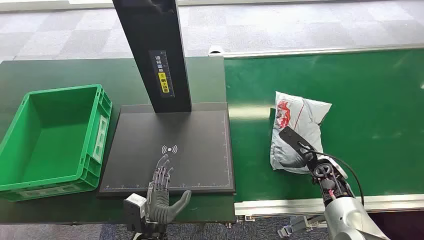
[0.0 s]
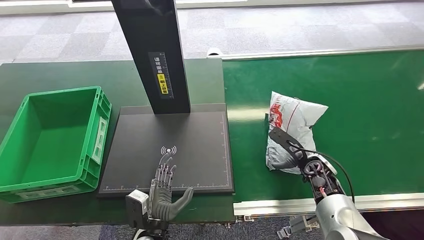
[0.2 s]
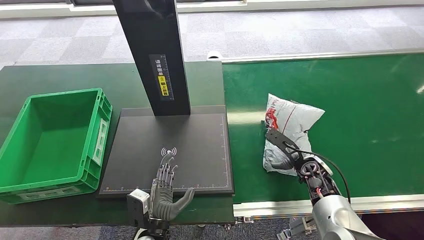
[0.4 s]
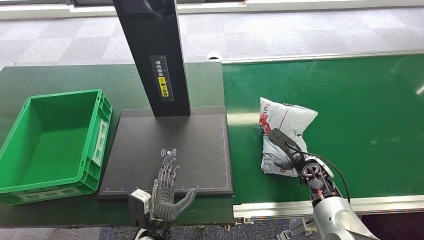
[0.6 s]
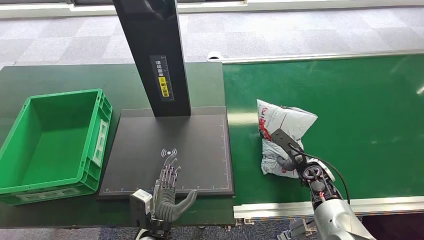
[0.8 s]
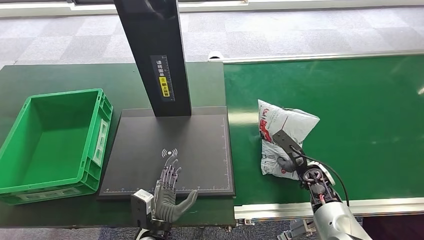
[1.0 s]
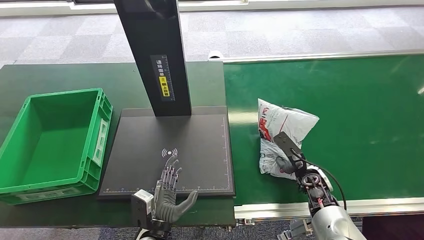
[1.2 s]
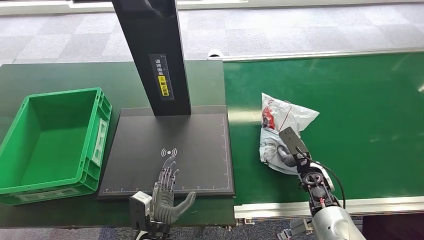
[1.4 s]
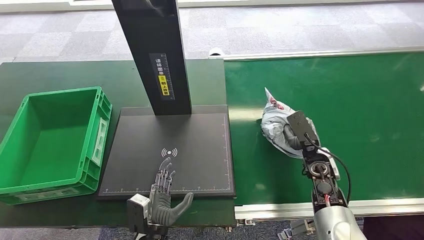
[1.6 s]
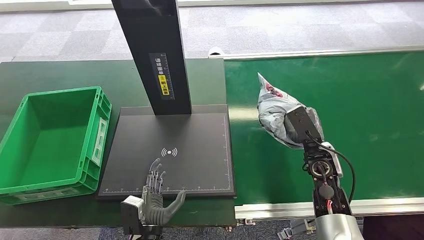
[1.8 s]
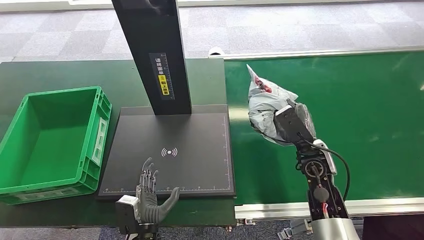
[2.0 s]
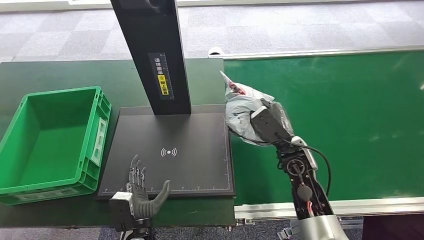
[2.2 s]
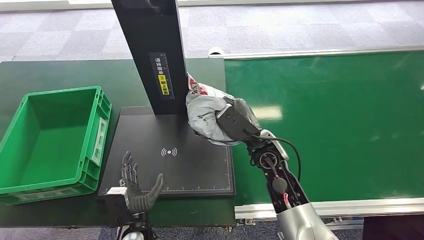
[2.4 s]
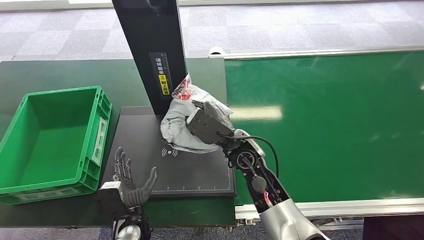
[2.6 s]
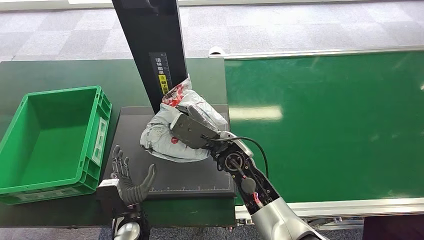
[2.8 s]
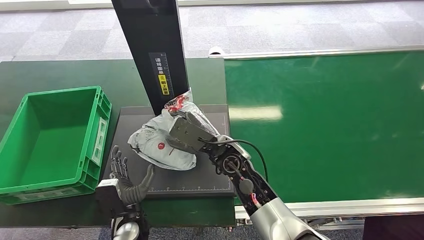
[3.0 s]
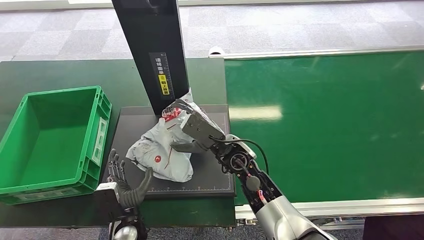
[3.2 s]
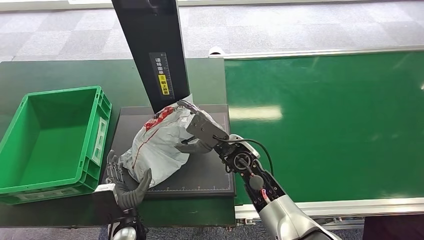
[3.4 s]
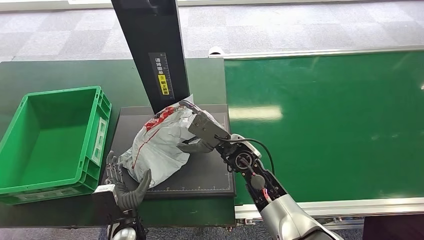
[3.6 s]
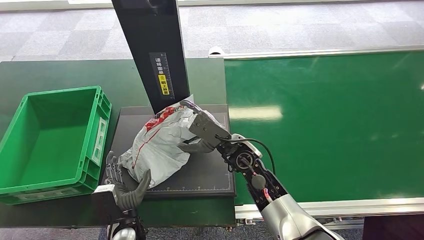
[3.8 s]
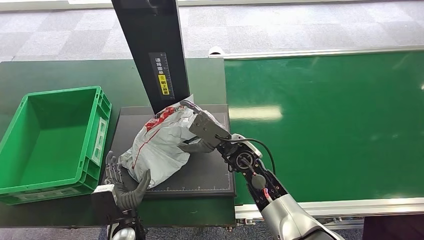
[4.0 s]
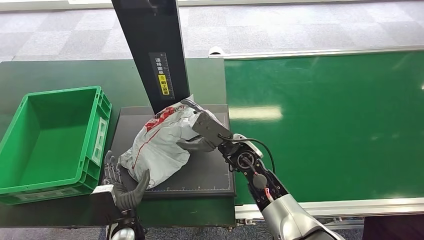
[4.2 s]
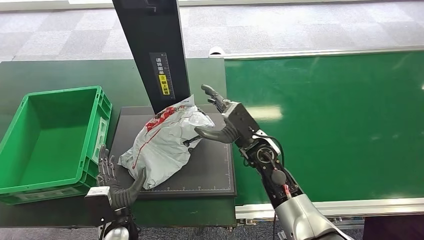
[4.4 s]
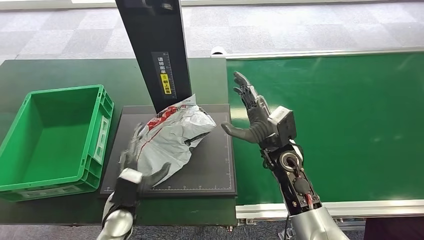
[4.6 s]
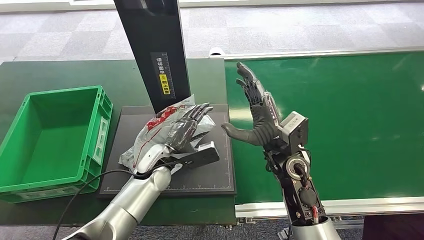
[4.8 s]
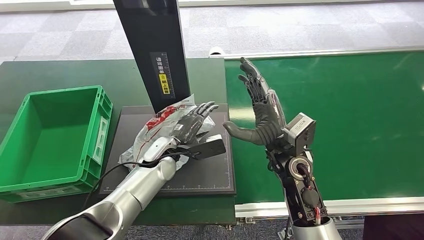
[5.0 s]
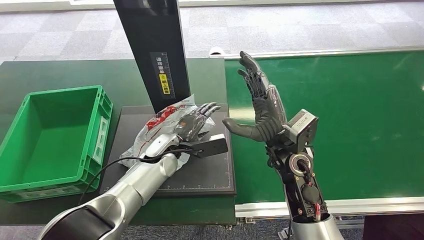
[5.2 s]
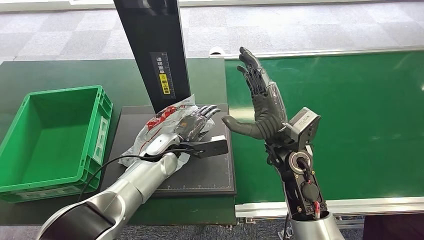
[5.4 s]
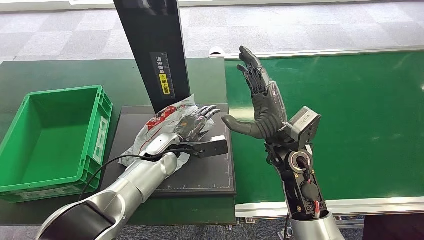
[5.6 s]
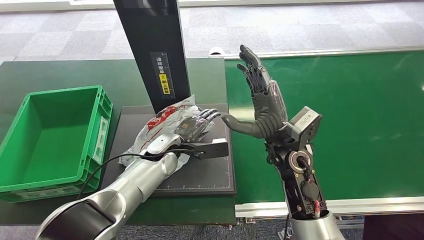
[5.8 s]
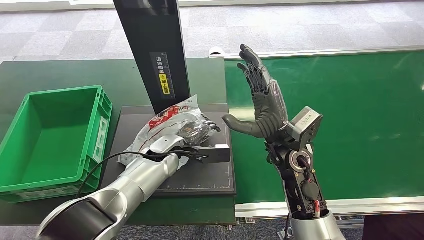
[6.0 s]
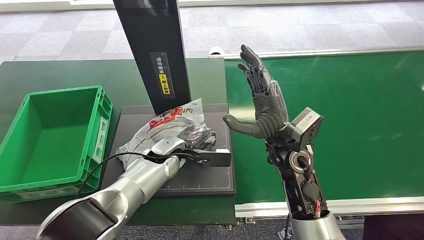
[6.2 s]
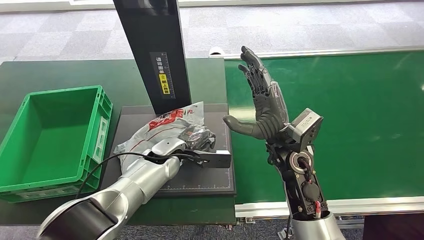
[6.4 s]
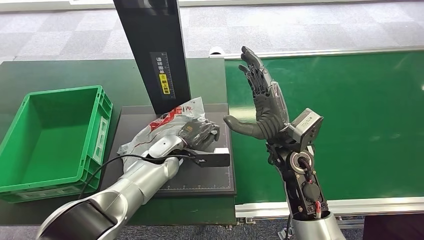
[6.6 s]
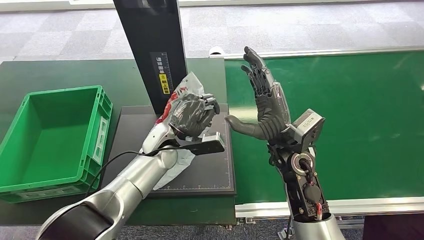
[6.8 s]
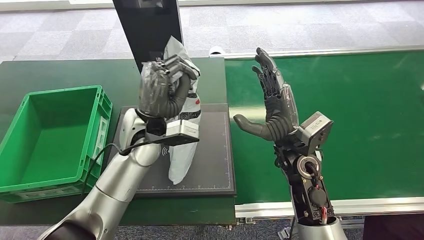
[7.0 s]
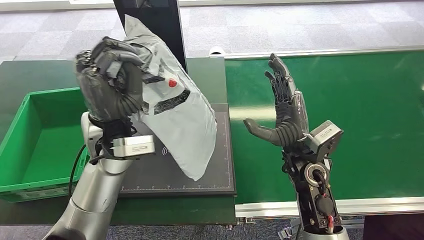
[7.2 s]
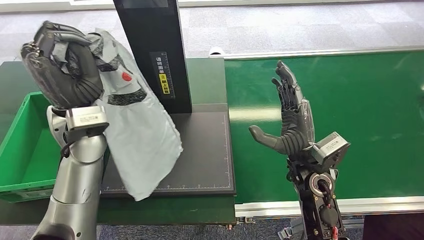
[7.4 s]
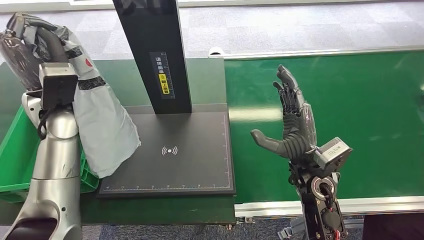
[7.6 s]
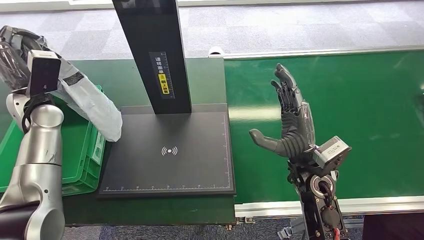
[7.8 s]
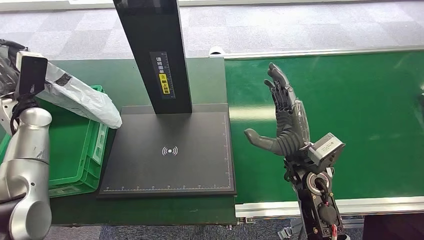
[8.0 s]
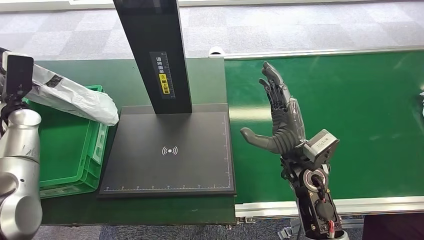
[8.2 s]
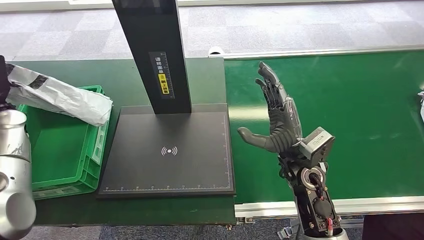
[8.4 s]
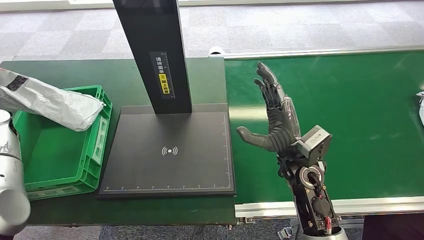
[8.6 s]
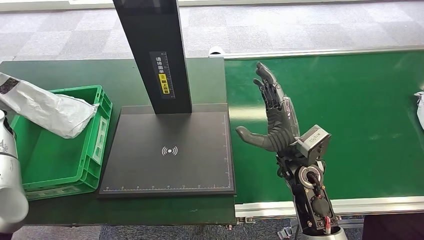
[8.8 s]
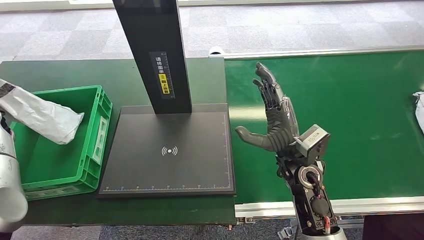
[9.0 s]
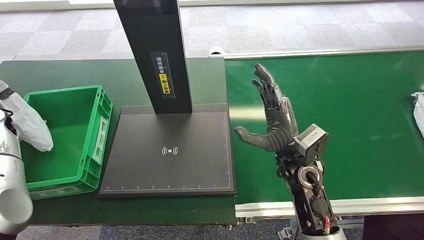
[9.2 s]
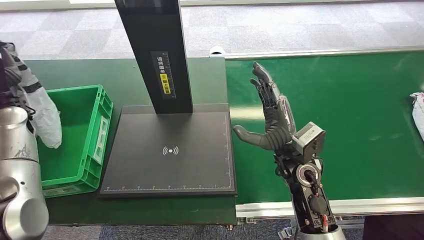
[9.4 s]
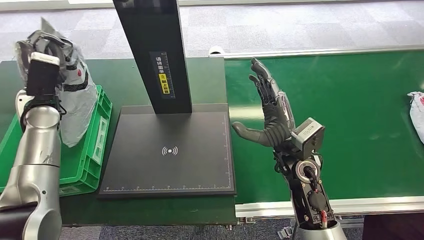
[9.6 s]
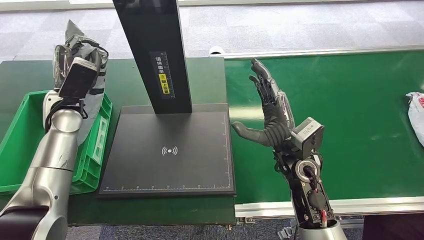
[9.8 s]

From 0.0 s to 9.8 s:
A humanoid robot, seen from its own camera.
Task of the whole recording: Weigh the package on the weighing device and place it in the left basket.
Step, from 0.0 s to 1.8 s: Pick up the package from the conveyor belt.
Step, from 2.2 s to 6.2 s: Place the package onto the inbound machine.
Step, from 6.6 s to 7.8 s: Pick up the package from the inbound machine.
From 2.8 s to 4.2 s: The right hand moves about 5 cm.
From 4.2 s to 5.6 s: The right hand heads upward and to the right, covering approximately 10 cm, while the left hand is displaced forward and upward by roughly 20 cm.
From 8.4 s to 9.8 s: The left hand heads to the right, covering roughly 15 cm.

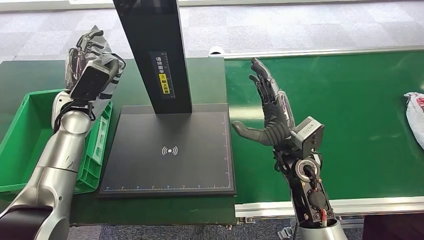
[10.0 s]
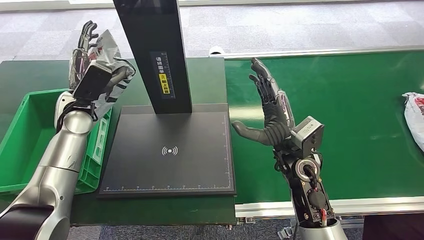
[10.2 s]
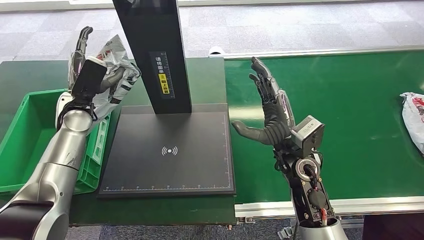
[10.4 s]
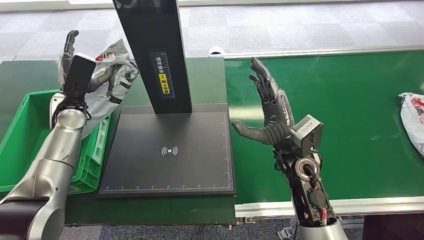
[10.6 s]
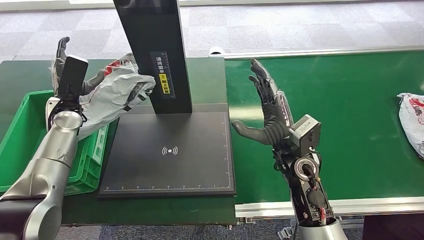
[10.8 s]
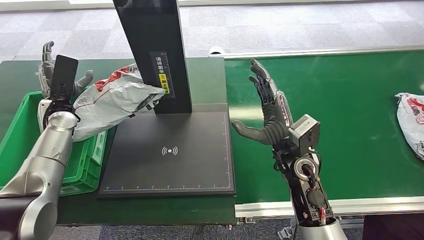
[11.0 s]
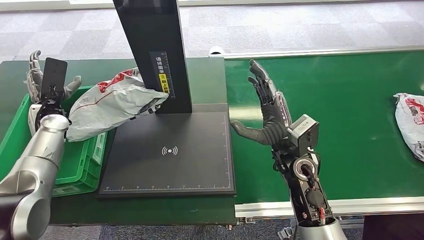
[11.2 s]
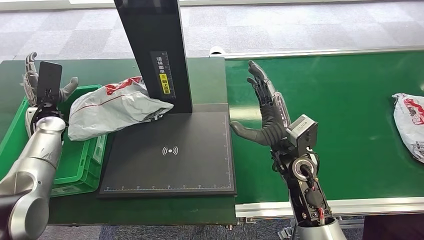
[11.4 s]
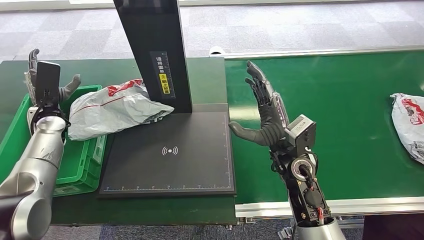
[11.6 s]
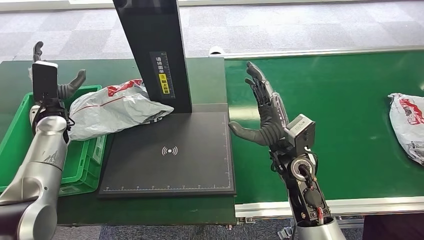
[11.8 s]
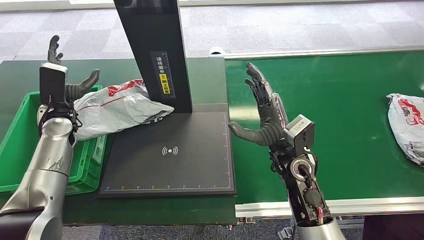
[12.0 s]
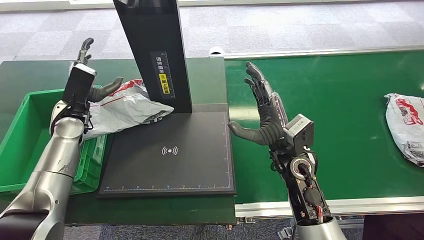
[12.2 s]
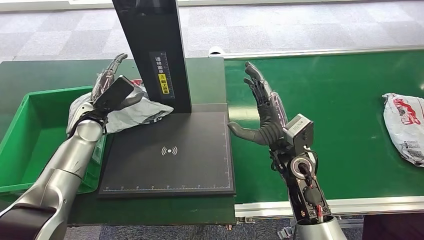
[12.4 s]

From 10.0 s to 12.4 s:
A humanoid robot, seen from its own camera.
Task of the whole recording: Weigh the package on the weighing device and place it in the left basket.
Step, from 10.0 s to 12.4 s: Place the package into the parcel locker.
From 10.0 s to 11.2 s: The left hand moves to the left, about 10 cm.
From 11.2 s to 12.4 s: The left hand moves to the right, approximately 10 cm.
